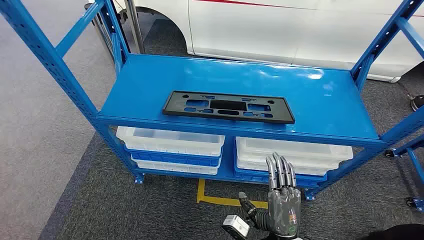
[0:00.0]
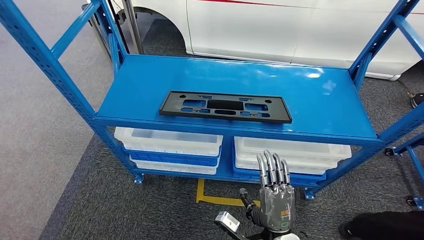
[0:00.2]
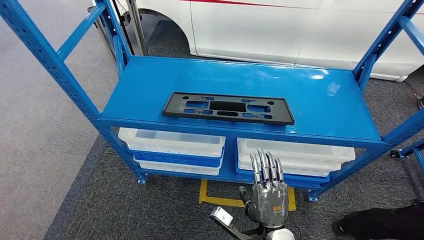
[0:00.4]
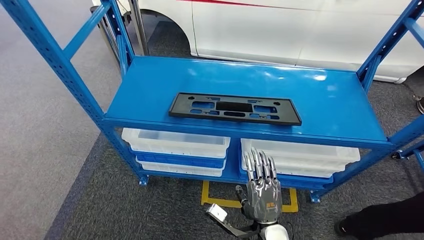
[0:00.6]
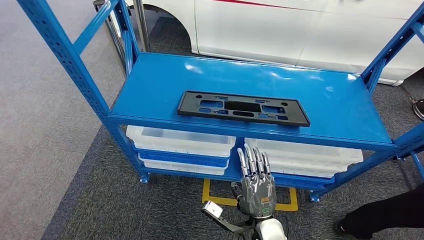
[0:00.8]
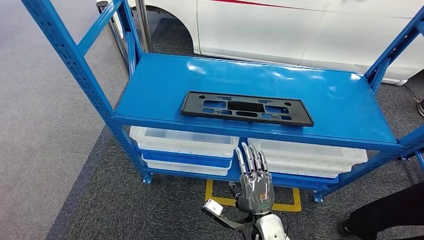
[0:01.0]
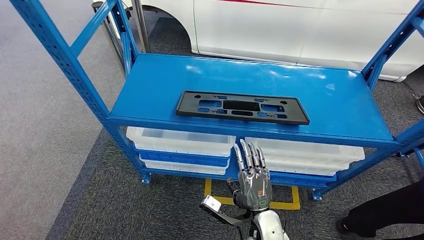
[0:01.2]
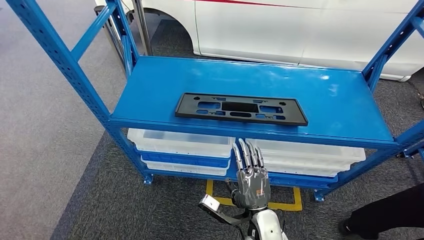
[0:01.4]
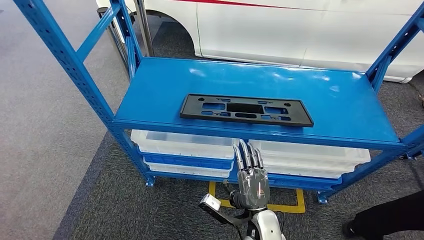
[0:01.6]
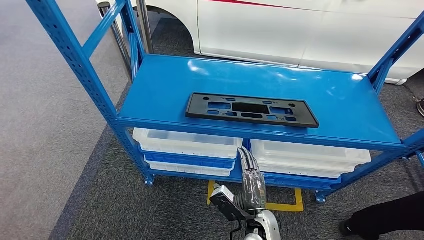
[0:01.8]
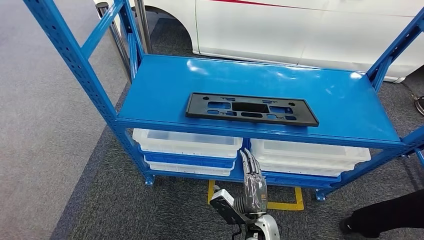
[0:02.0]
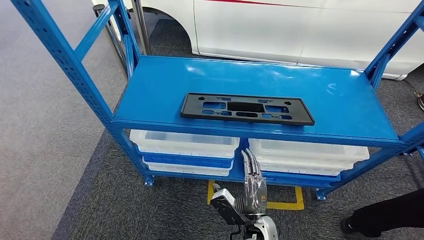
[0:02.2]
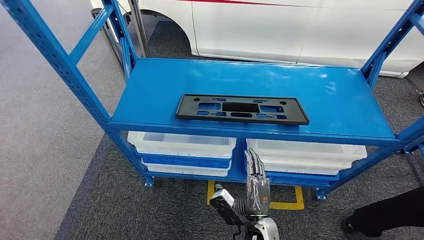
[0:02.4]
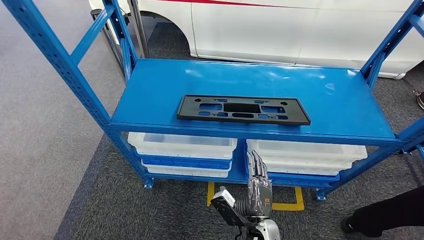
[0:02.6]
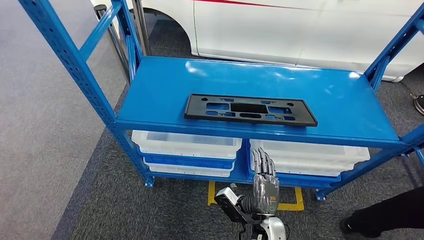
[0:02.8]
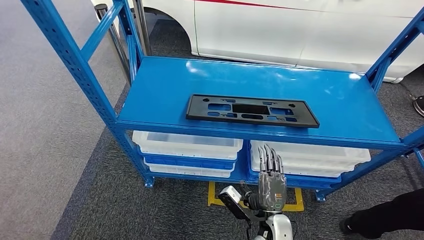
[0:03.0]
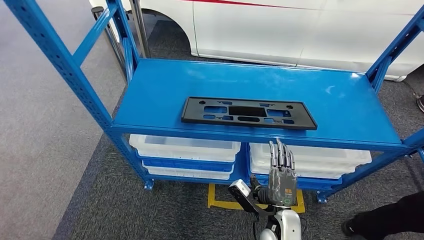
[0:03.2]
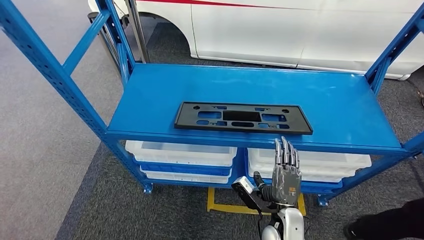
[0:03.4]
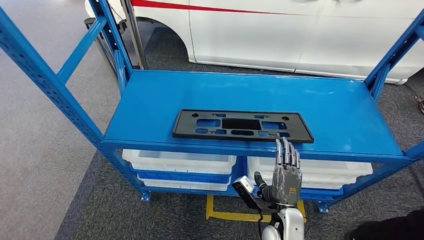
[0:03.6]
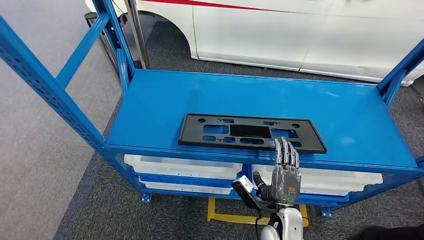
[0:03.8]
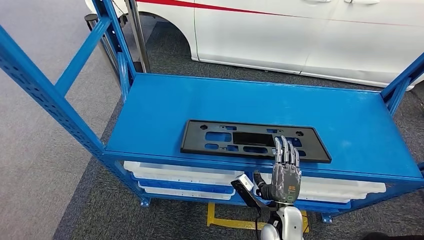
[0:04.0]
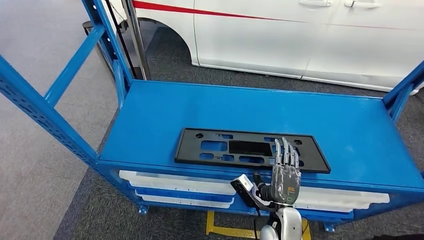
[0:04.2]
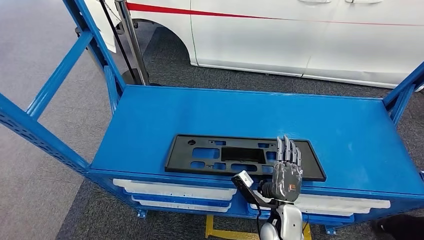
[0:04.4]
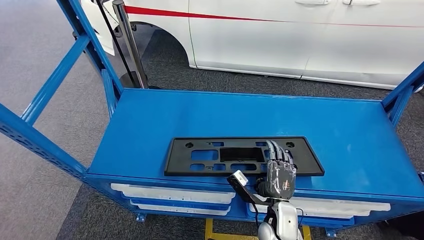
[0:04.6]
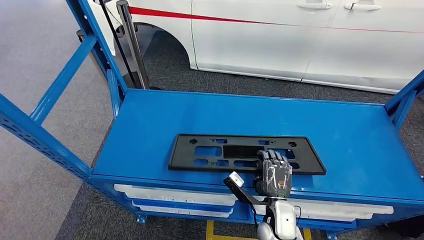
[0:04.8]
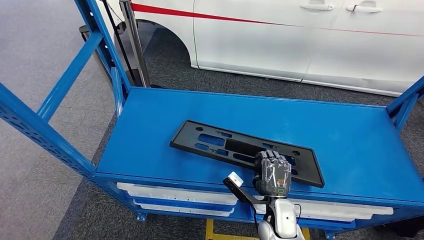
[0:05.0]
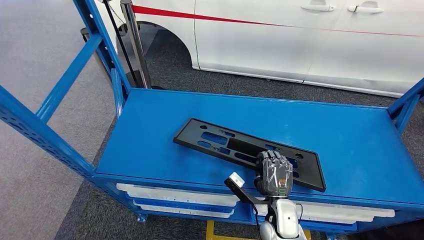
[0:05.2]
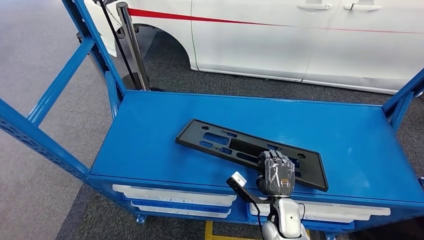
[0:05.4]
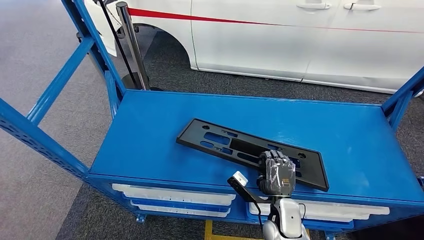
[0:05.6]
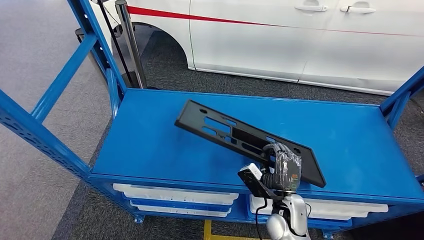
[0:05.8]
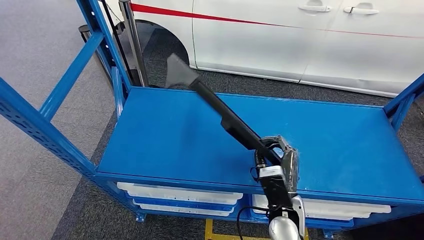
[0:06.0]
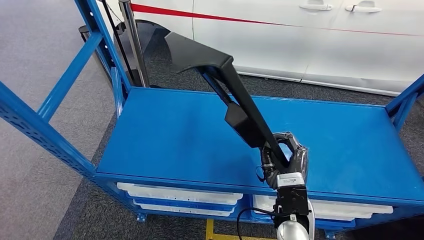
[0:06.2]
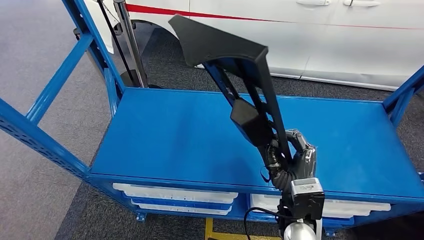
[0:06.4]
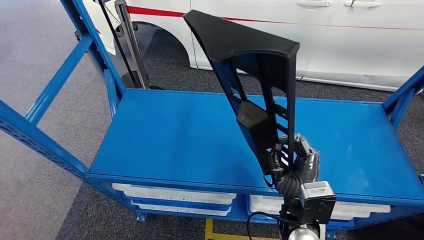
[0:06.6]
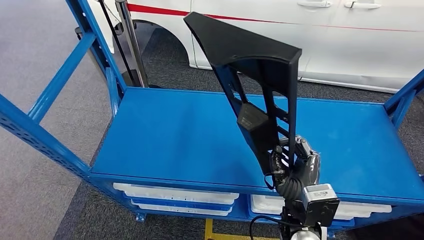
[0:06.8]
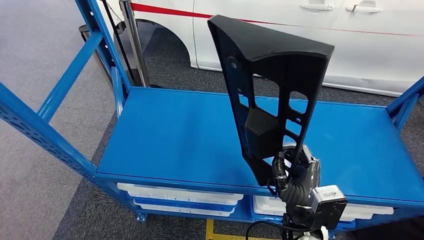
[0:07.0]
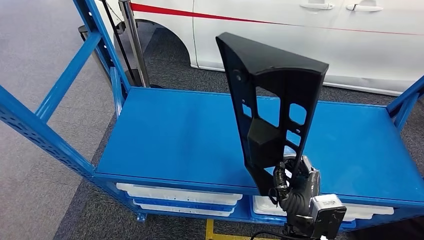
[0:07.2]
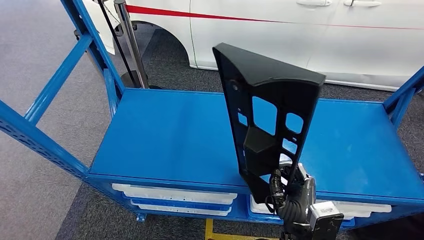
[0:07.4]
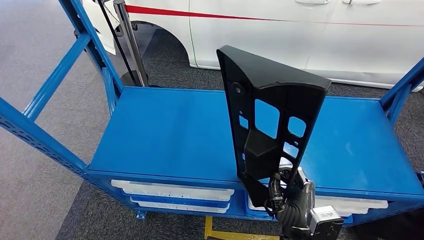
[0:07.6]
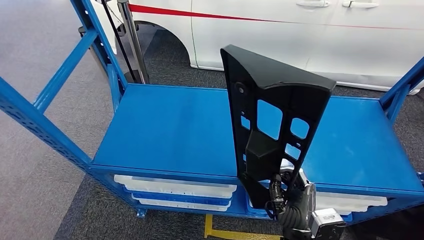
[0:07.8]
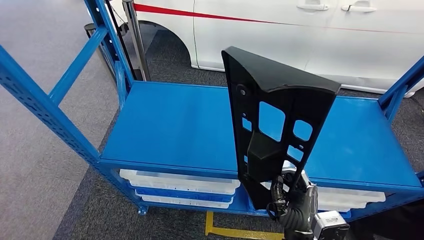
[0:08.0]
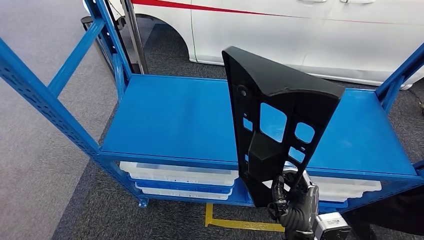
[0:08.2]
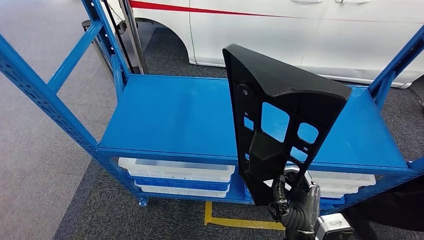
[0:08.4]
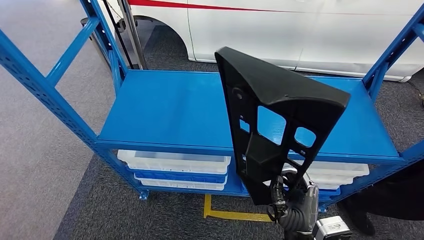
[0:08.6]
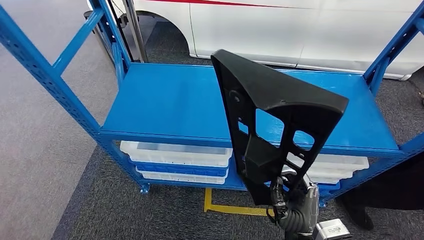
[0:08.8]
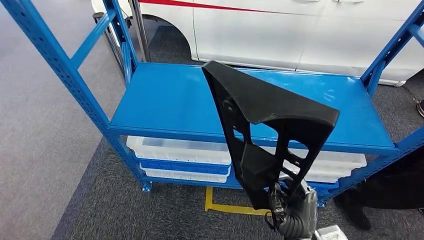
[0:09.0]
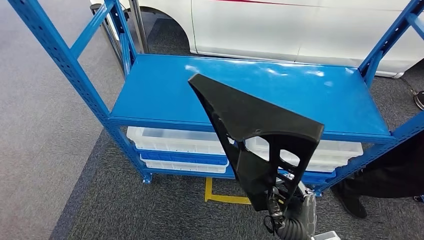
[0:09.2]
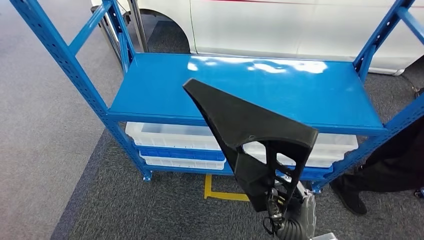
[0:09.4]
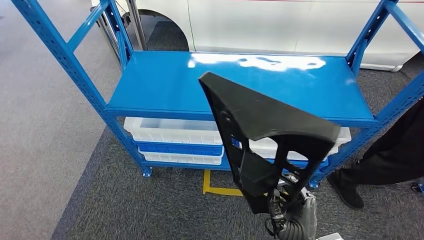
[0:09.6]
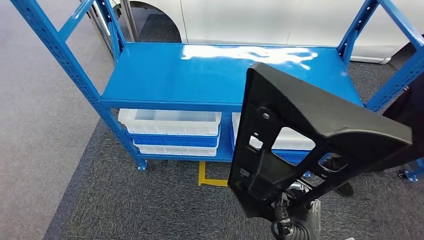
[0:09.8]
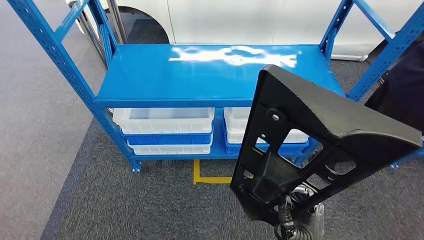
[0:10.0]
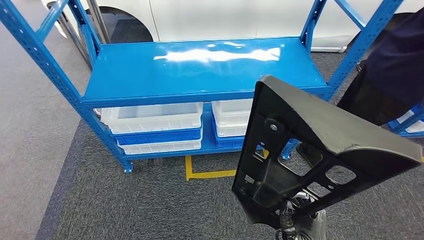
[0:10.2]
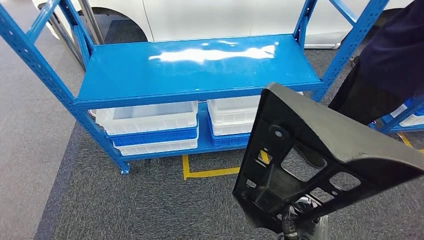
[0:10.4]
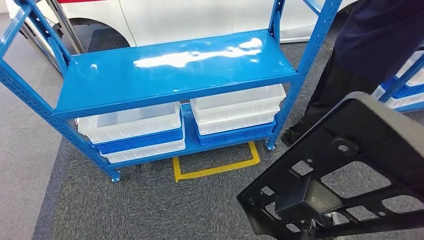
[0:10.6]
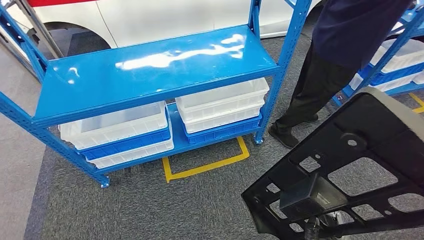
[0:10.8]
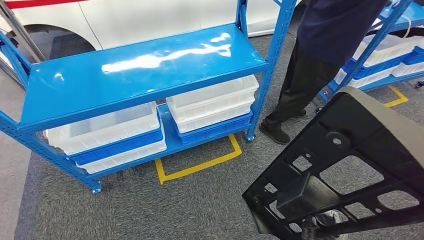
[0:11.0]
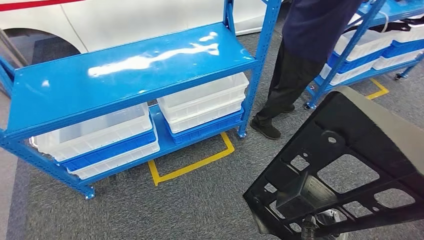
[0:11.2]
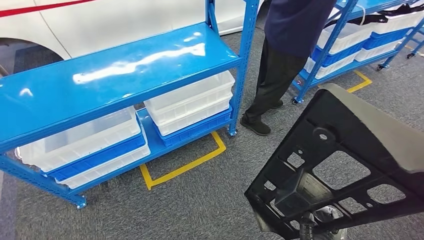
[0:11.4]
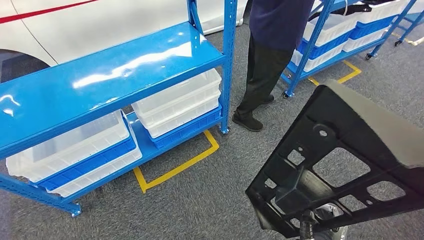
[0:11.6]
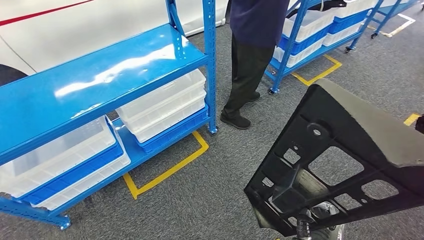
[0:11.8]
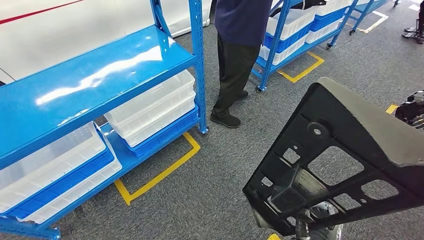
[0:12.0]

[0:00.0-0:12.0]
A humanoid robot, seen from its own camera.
Step, 0:00.0 to 0:06.0: Pick up the large material from the shelf.

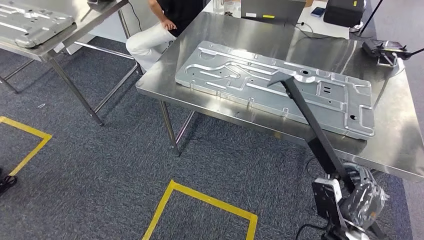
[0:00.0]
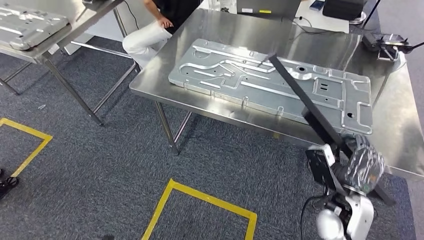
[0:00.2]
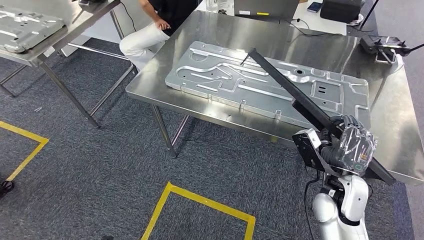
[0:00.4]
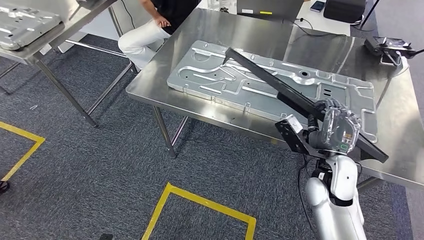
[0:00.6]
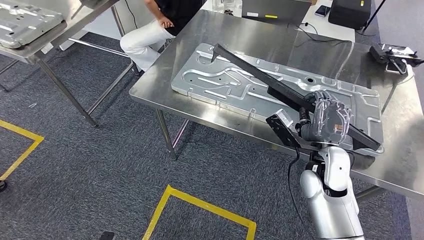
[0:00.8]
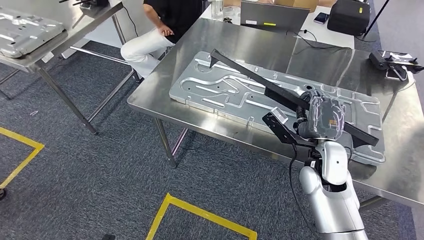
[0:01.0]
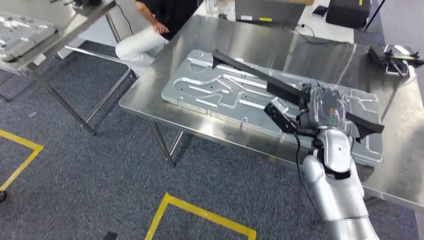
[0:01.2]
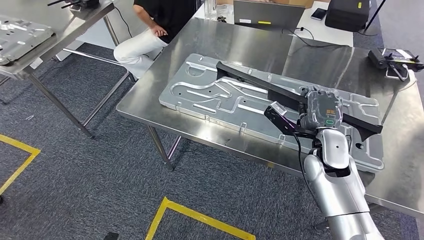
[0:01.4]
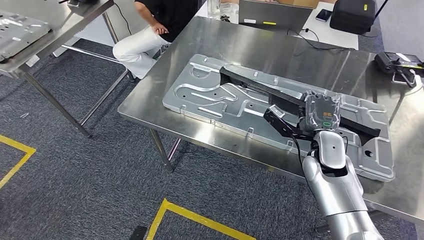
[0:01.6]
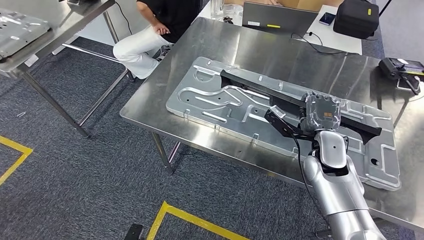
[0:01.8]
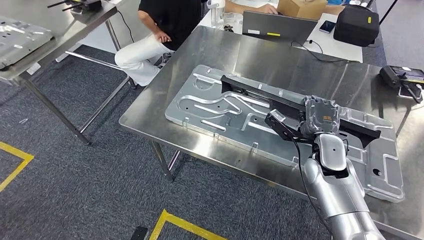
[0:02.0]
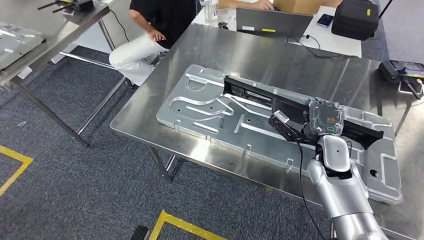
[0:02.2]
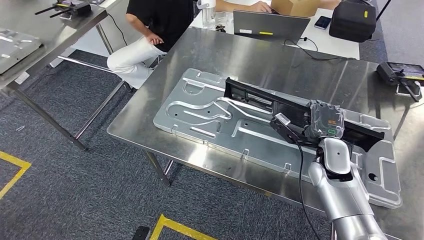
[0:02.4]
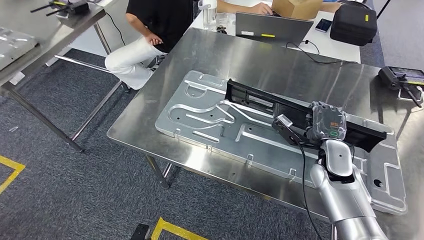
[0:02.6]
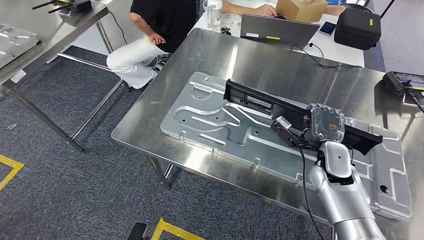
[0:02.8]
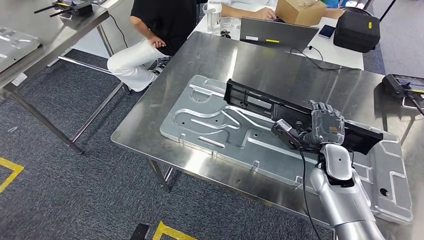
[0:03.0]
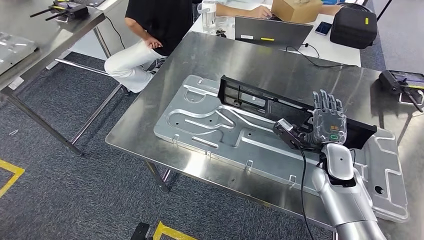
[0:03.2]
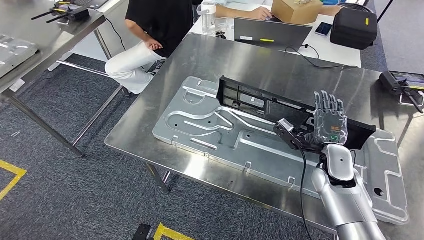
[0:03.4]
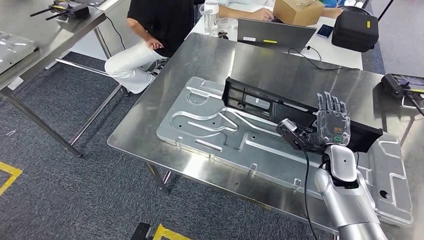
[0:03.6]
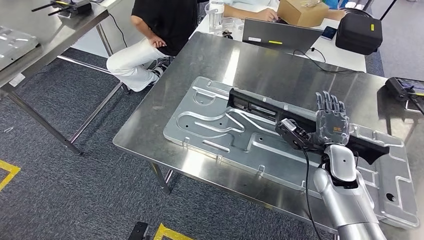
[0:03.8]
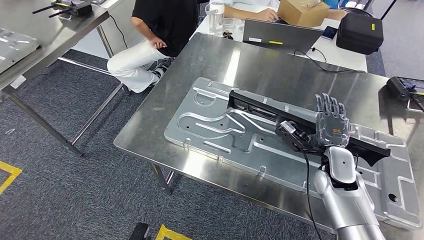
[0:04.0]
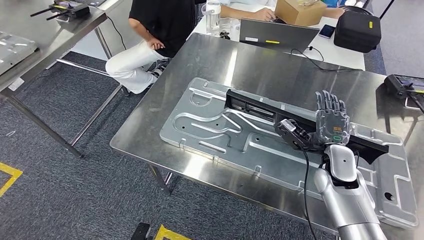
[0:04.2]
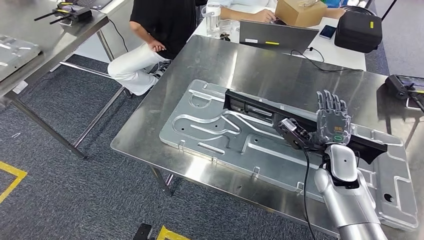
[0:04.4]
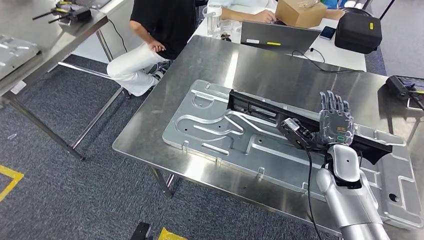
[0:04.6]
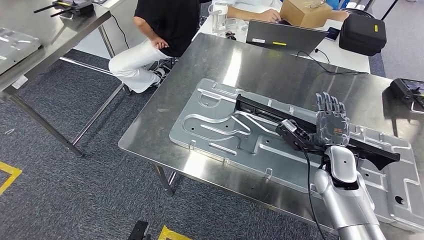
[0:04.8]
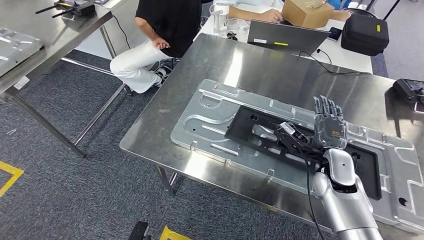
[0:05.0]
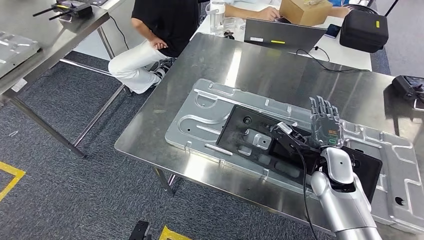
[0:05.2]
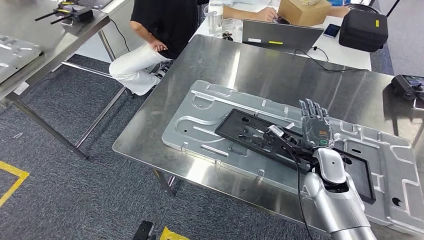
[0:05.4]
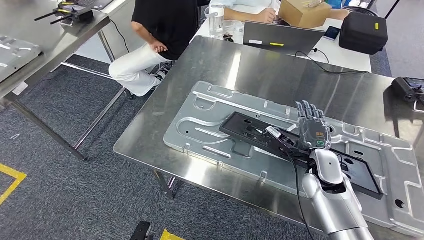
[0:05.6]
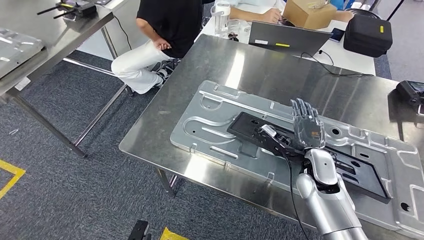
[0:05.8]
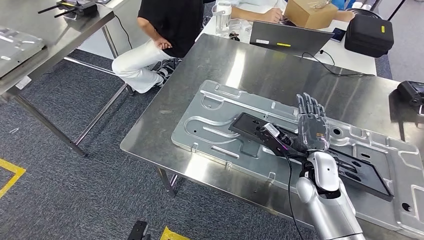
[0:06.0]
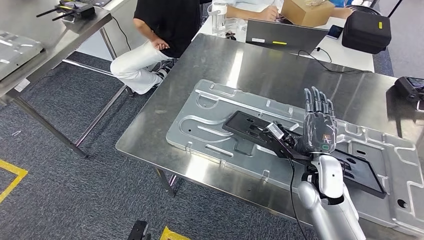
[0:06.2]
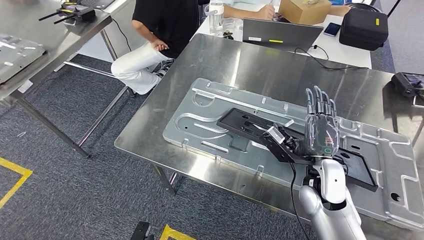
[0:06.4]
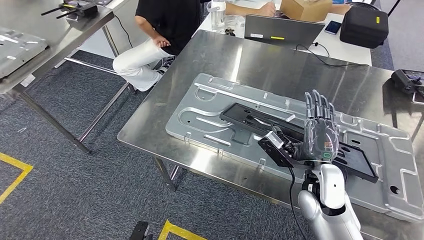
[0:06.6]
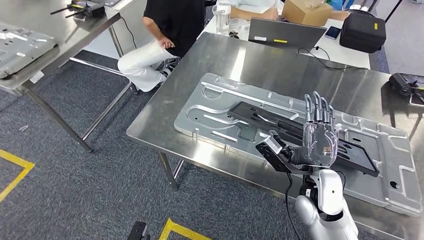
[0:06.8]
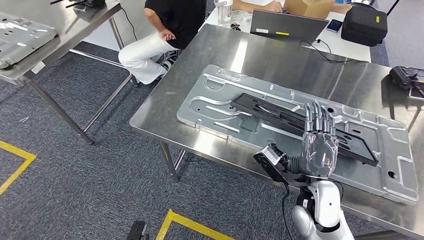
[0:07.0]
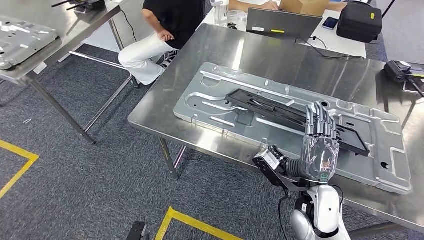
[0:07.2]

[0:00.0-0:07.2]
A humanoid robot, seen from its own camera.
Step, 0:02.0 to 0:05.4: Insert the large material into the corresponding slot on the workbench.
